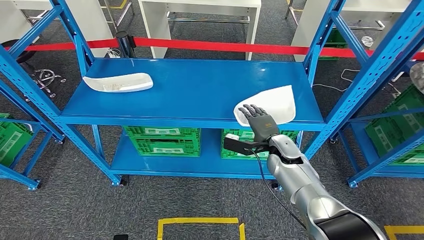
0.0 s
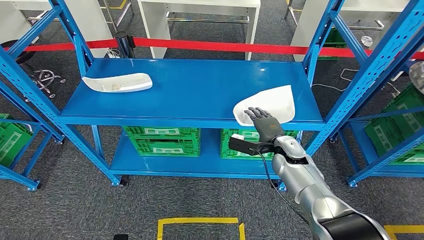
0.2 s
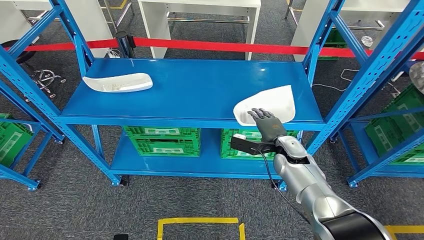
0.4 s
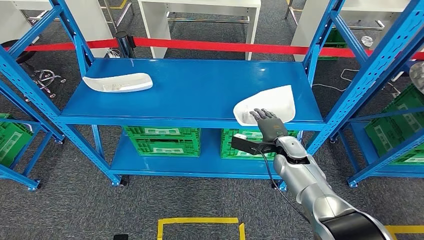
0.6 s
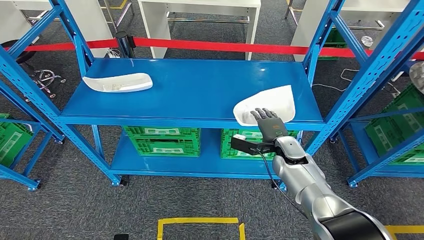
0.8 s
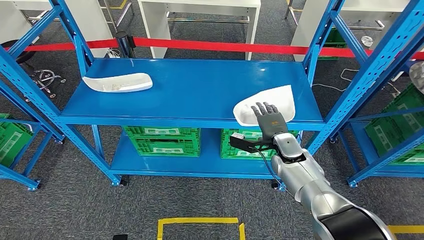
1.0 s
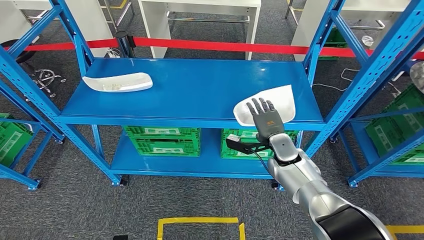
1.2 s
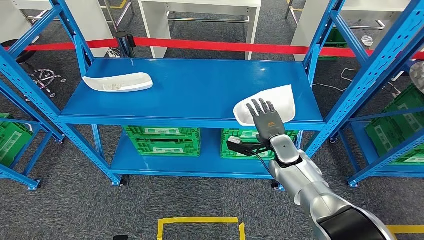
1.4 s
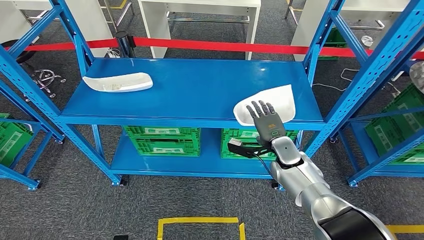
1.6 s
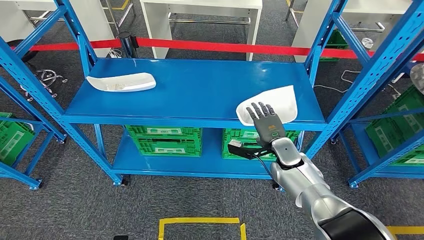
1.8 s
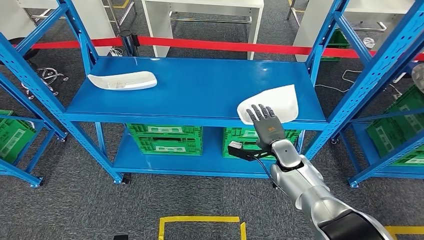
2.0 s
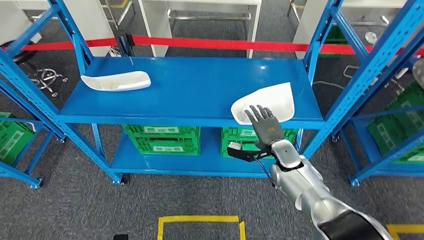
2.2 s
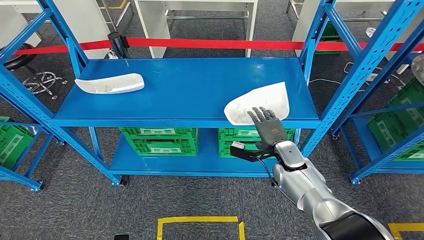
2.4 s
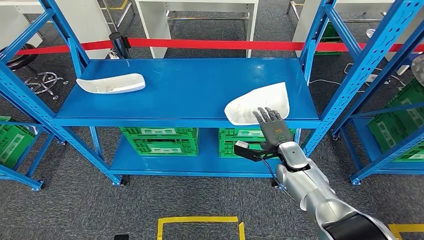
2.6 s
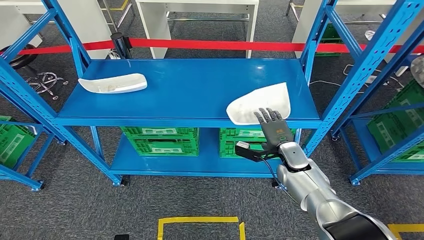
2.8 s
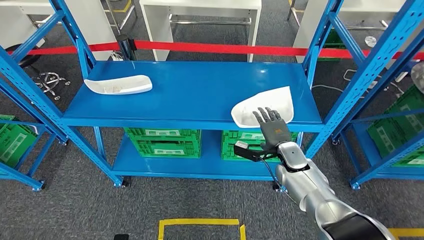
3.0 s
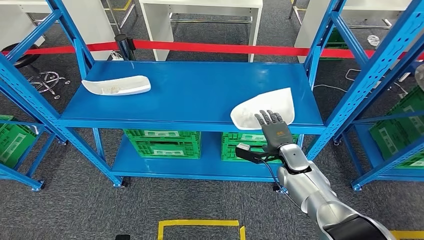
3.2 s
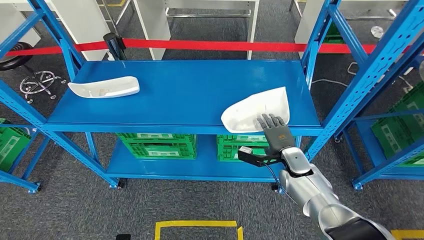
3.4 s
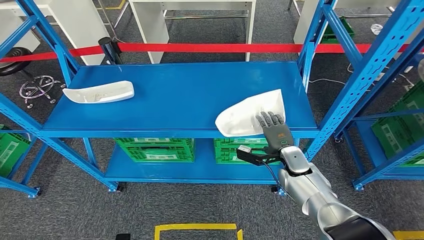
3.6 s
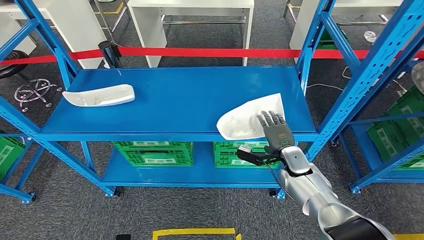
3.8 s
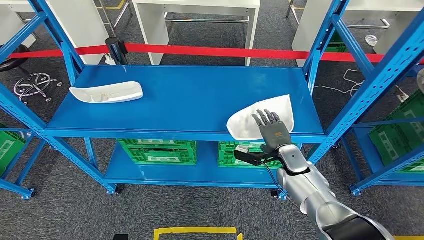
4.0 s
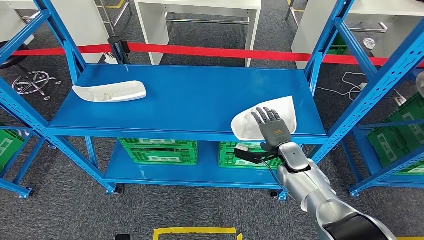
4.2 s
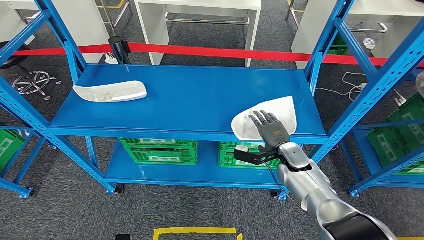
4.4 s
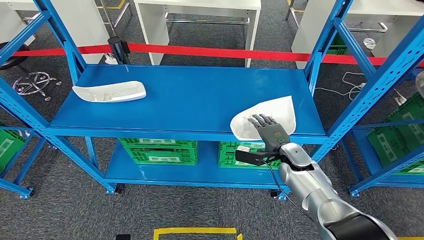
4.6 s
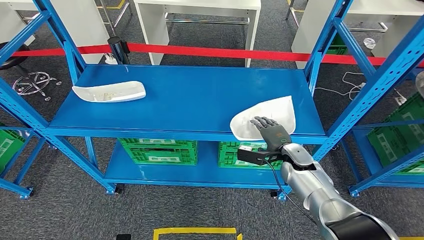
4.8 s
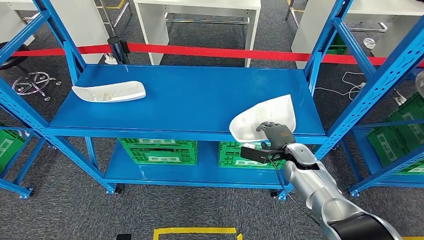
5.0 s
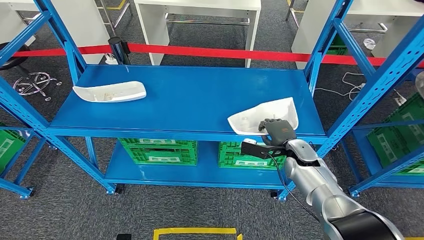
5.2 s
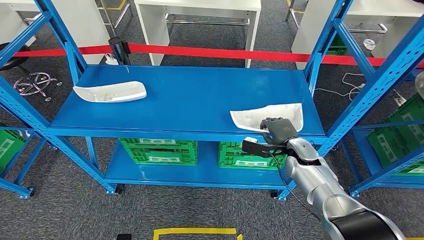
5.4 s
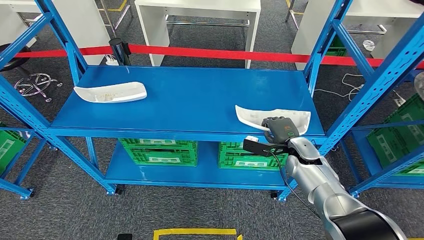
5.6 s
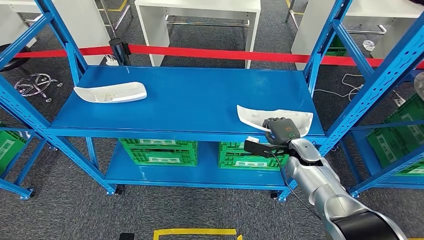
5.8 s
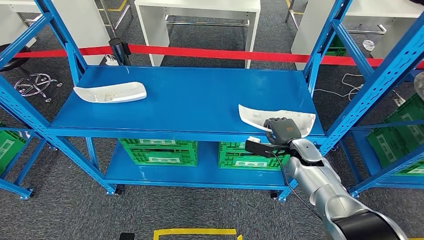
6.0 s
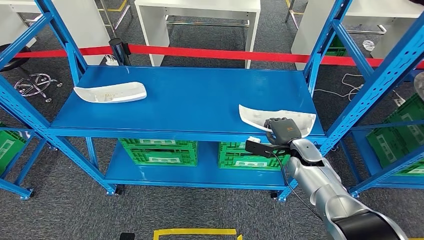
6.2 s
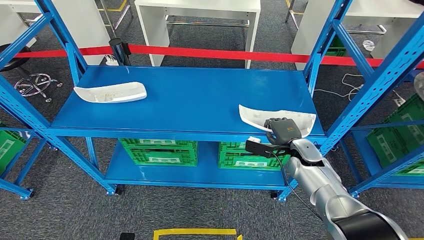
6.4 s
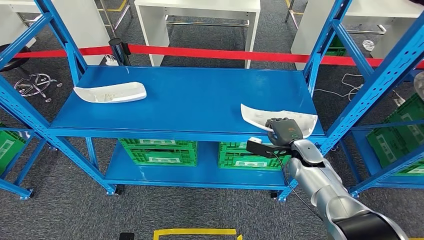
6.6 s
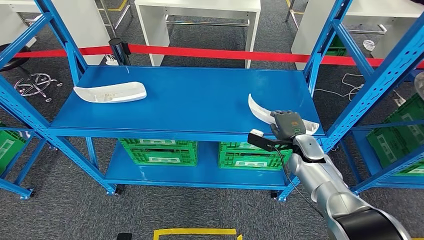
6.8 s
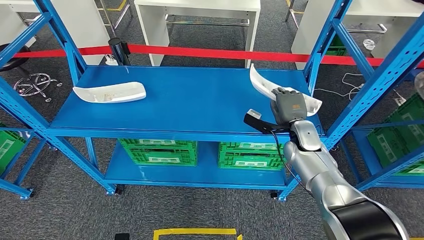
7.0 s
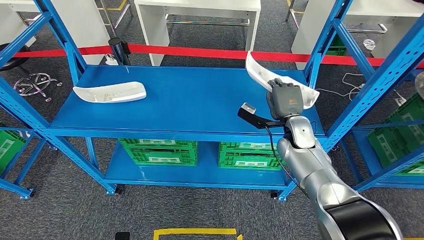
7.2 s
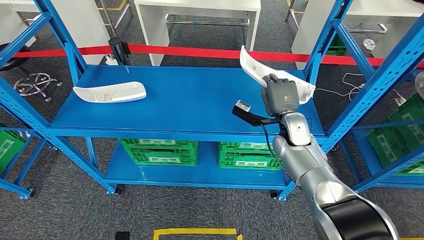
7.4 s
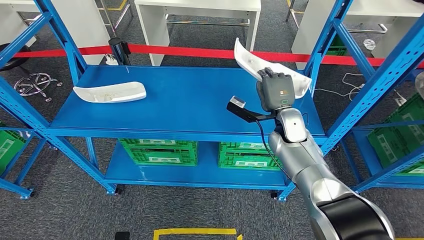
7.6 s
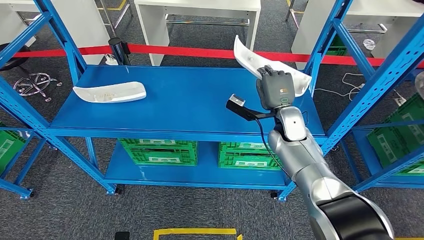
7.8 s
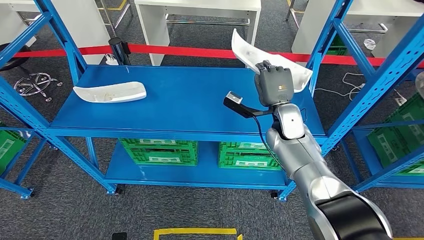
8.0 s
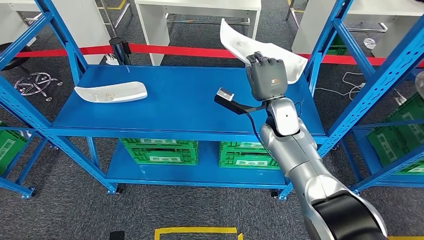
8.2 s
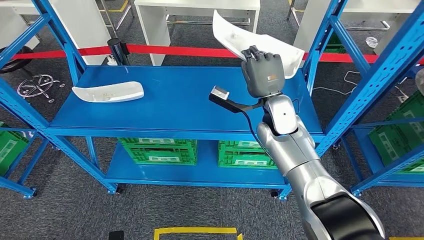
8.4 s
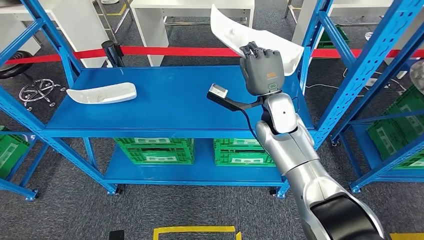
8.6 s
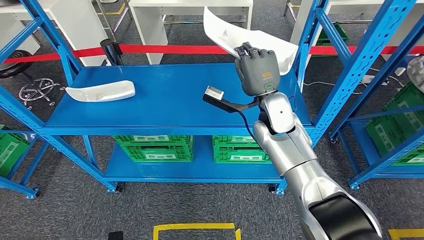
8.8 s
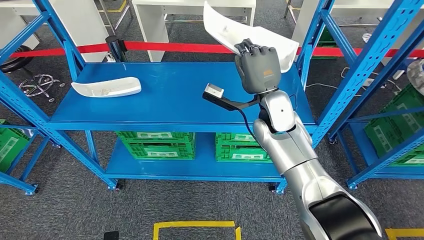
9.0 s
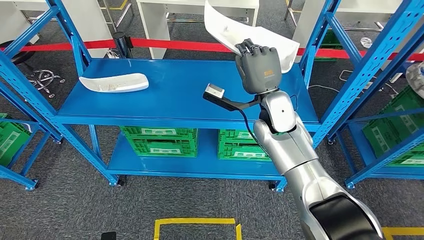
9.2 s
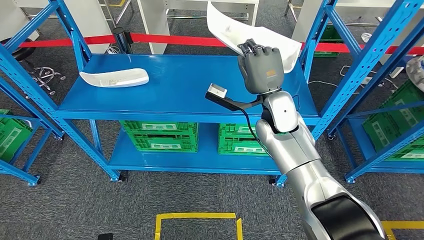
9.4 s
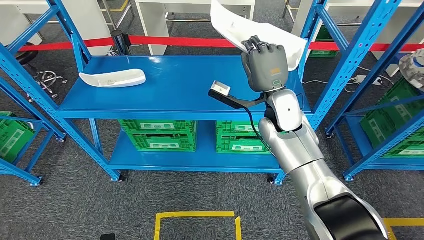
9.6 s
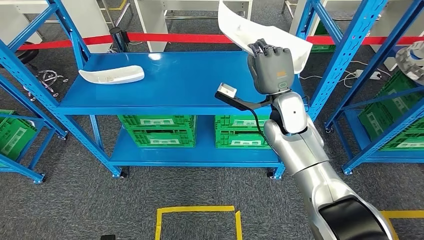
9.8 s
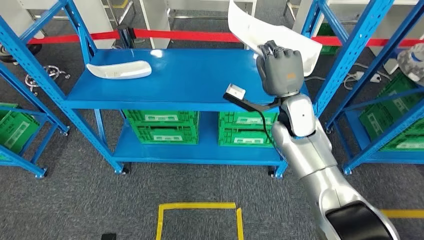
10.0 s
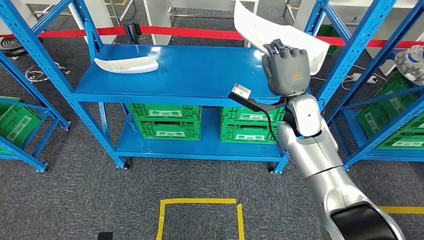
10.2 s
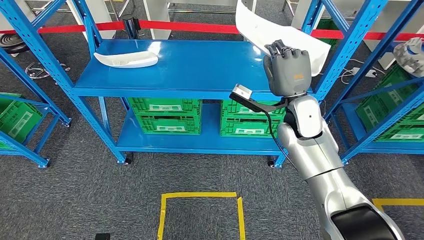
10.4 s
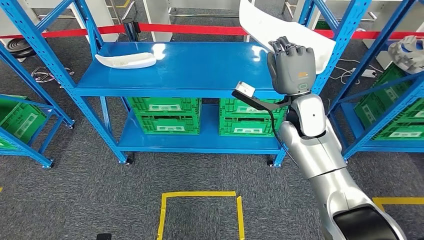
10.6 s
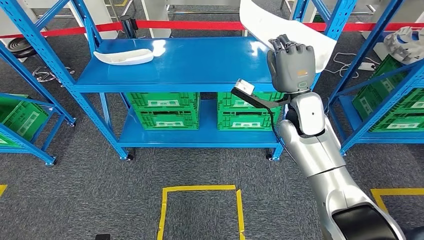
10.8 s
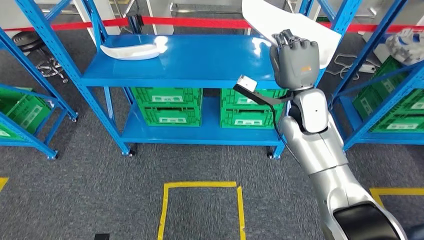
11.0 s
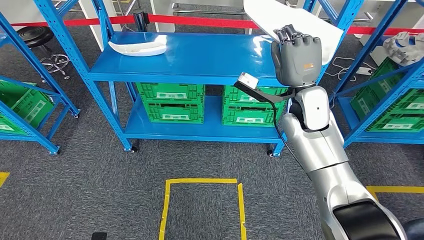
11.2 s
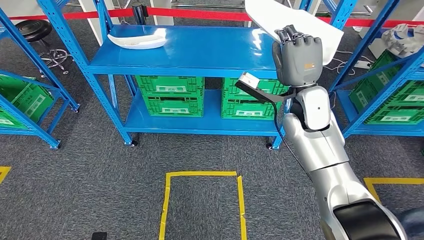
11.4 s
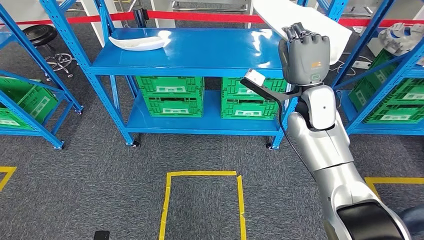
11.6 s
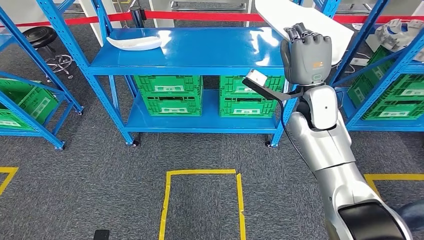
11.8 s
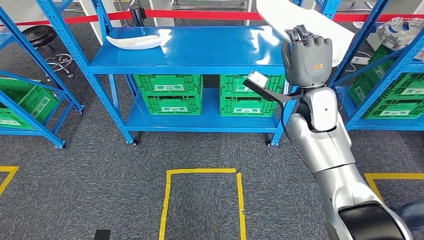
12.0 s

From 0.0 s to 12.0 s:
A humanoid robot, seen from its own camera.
Step, from 0.0 s to 9.4 s: Pick up the small component from the shelf.
From 1.6 s to 3.0 s: There are only small adjustments of the hands.
From 4.4 s to 6.0 s: The hands make only small movements.
From 6.0 s to 7.6 s: The right hand moves upward, to the left and forward, approximately 15 cm.

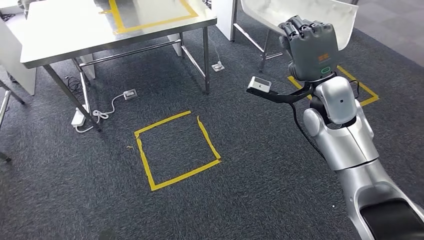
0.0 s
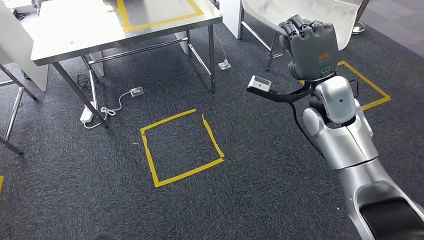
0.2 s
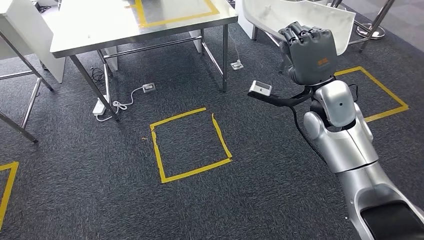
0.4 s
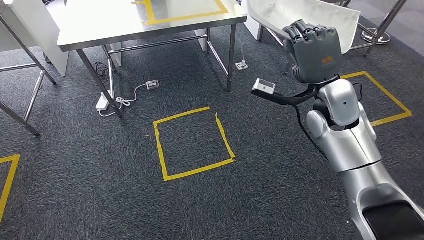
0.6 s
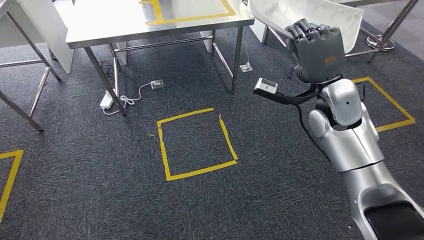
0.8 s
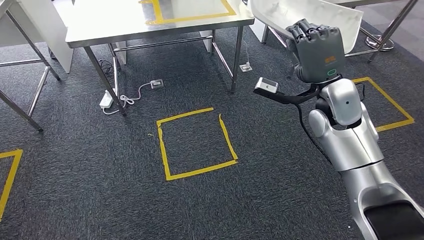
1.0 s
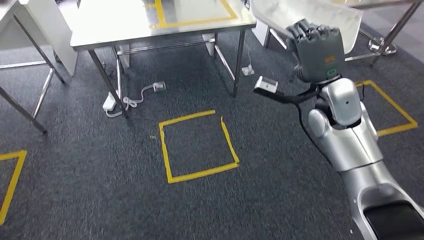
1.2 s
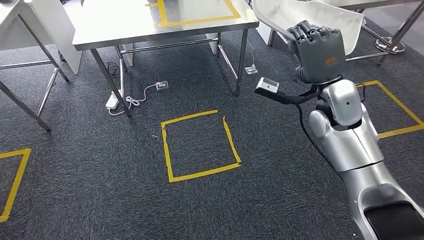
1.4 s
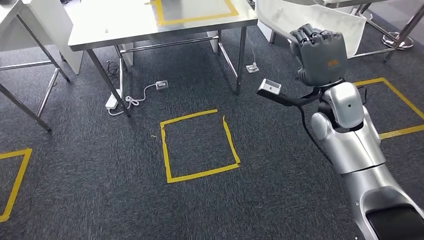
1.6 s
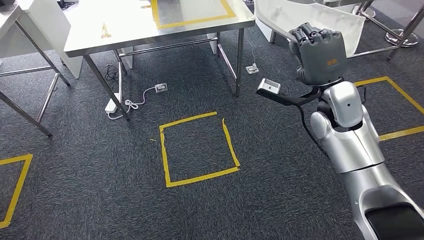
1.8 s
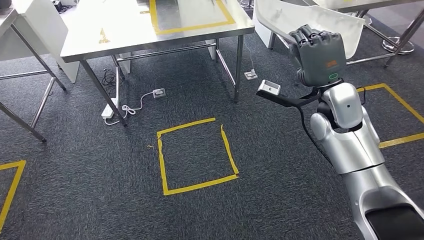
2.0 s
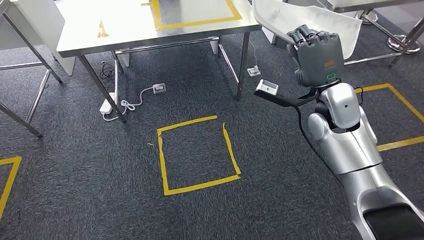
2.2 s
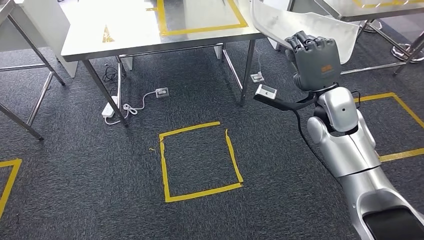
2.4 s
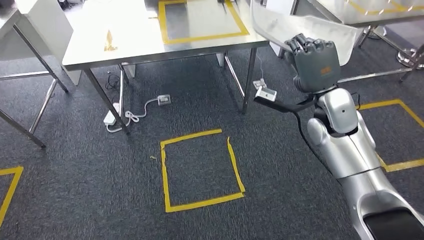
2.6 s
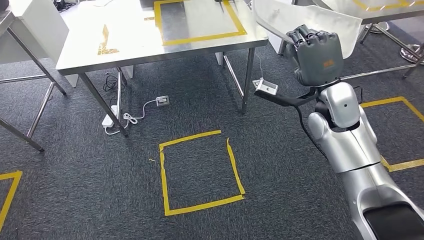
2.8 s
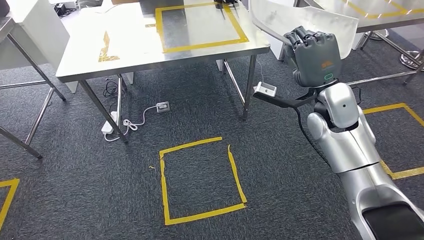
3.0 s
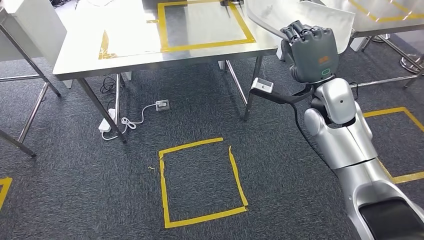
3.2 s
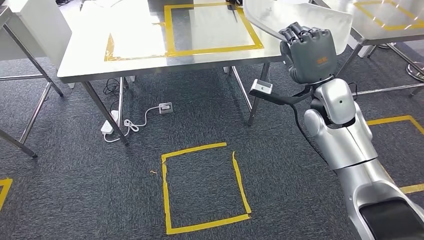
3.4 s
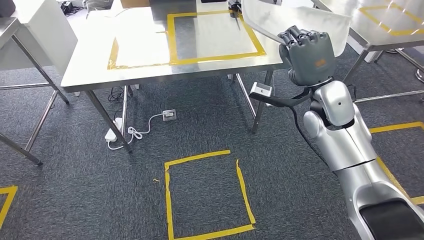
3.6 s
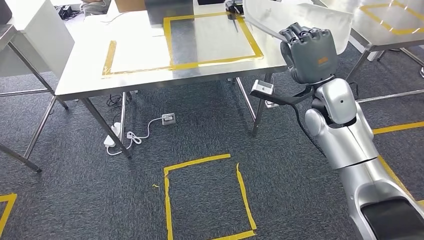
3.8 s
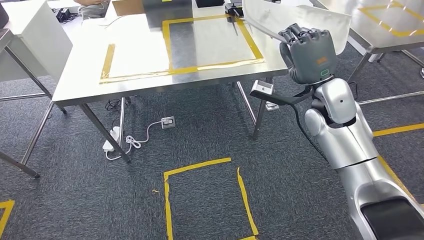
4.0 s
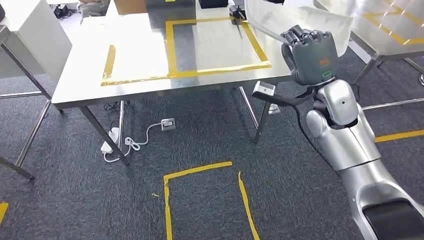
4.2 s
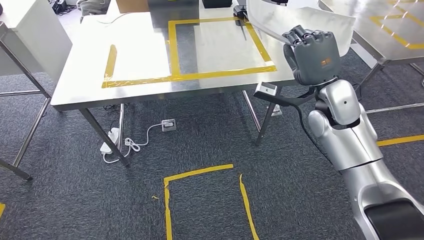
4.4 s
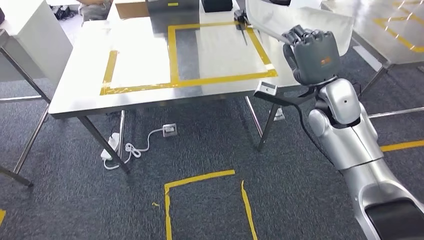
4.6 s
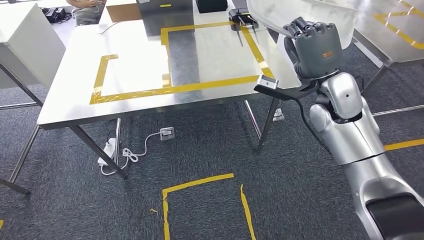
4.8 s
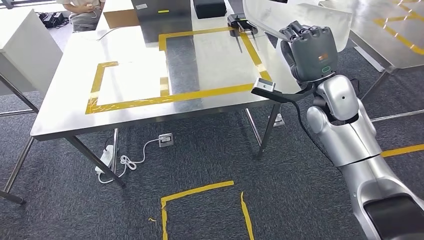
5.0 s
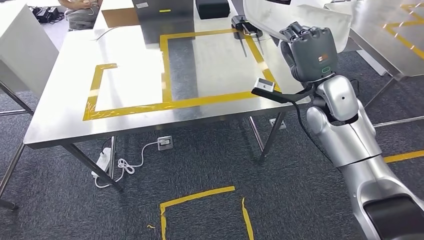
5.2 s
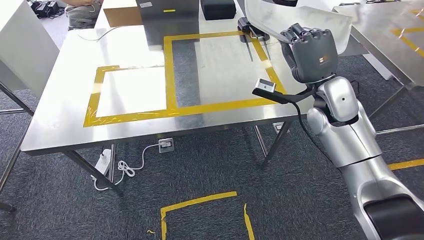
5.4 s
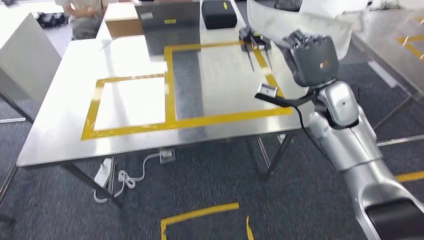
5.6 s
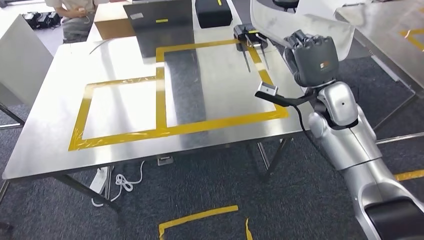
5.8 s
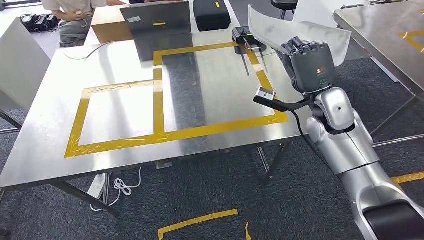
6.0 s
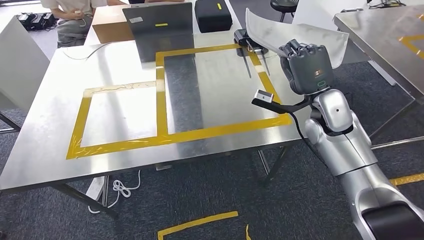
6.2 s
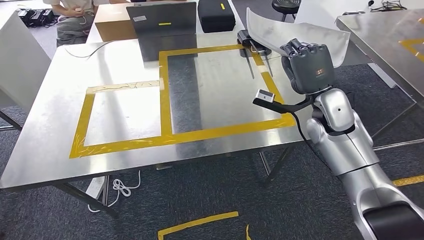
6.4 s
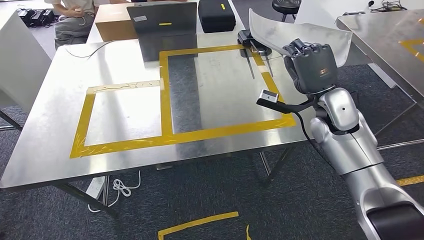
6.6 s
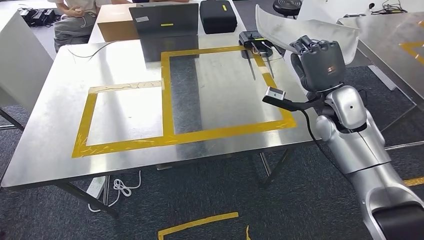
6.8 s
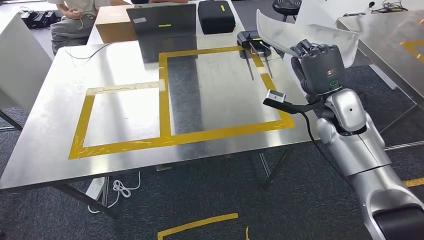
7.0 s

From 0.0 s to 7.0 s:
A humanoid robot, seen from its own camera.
Step, from 0.0 s to 4.0 s: Bring the small component to the front of the workbench.
